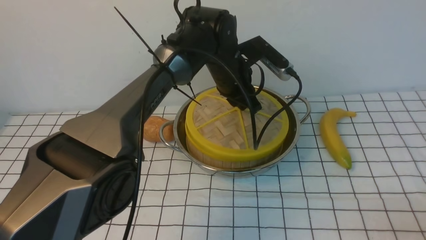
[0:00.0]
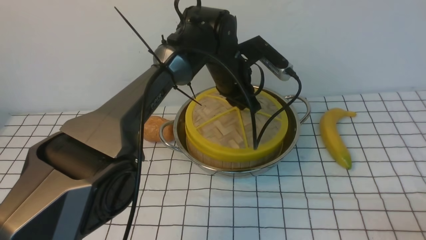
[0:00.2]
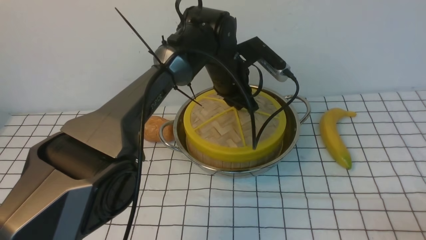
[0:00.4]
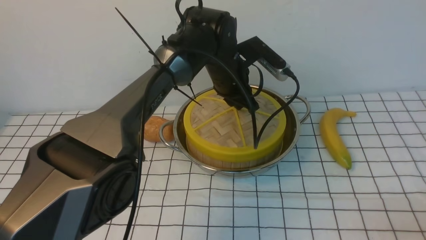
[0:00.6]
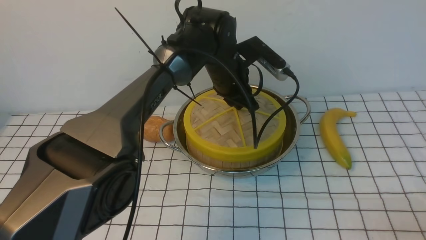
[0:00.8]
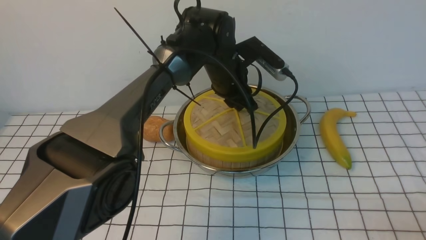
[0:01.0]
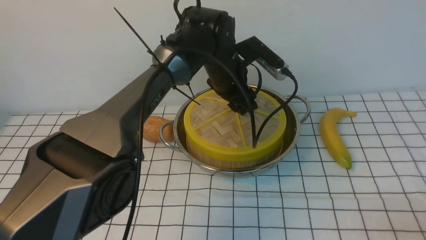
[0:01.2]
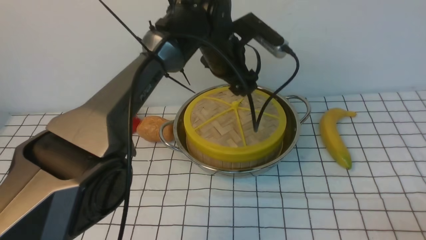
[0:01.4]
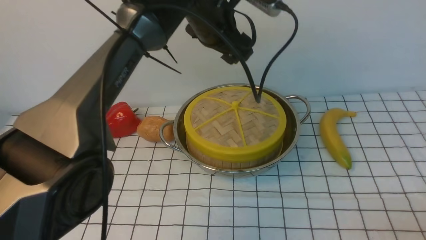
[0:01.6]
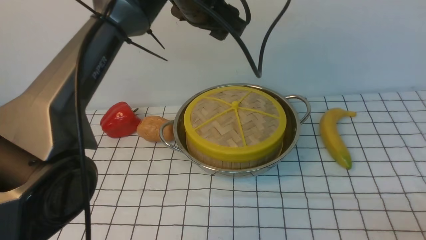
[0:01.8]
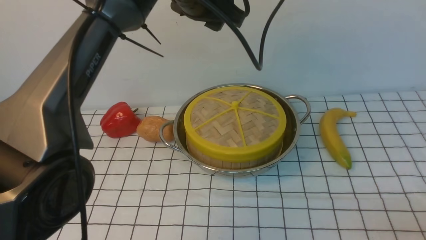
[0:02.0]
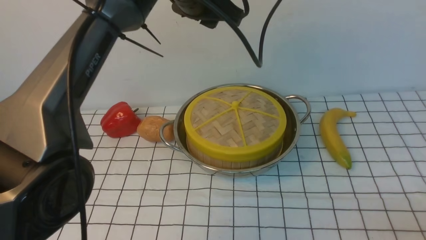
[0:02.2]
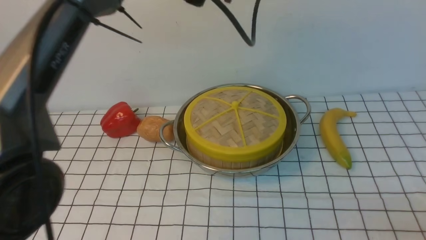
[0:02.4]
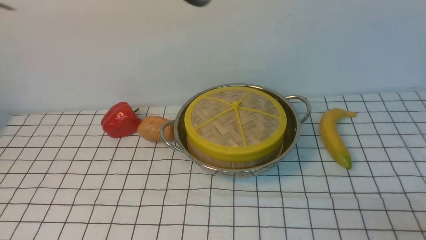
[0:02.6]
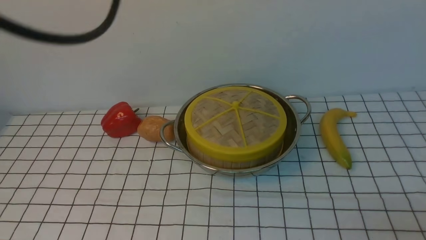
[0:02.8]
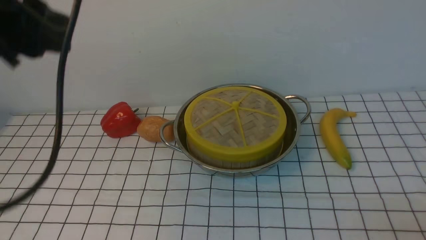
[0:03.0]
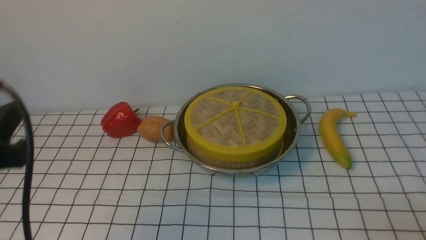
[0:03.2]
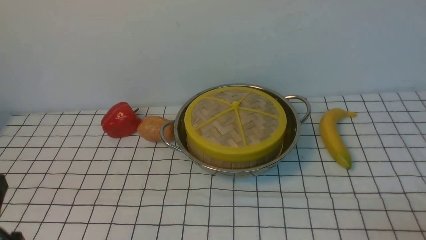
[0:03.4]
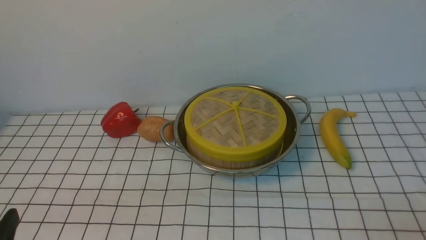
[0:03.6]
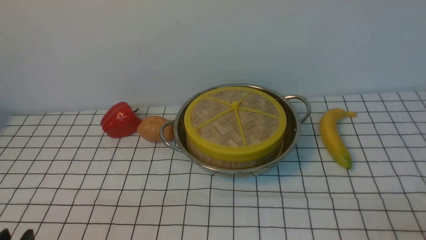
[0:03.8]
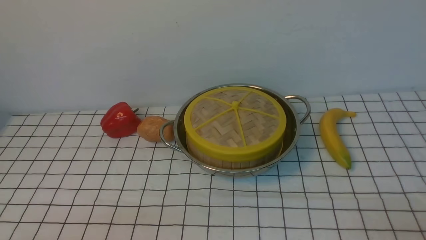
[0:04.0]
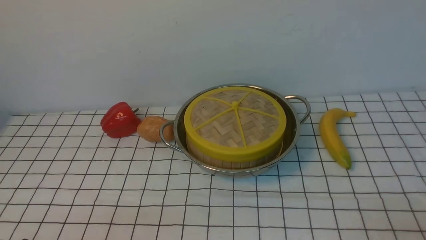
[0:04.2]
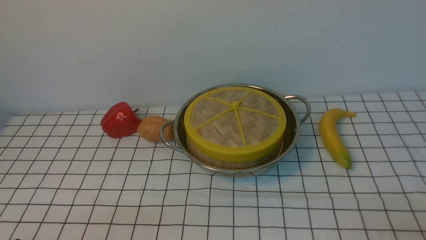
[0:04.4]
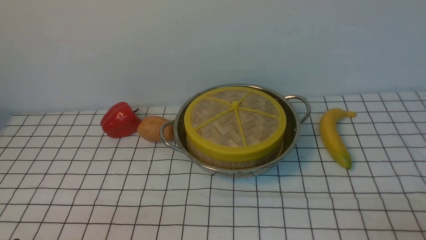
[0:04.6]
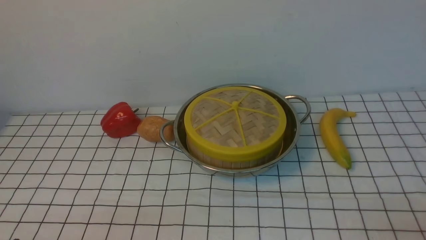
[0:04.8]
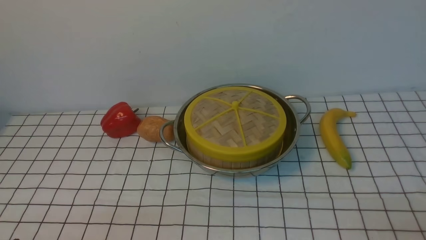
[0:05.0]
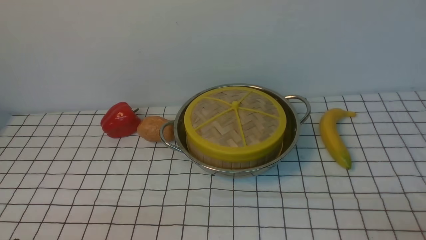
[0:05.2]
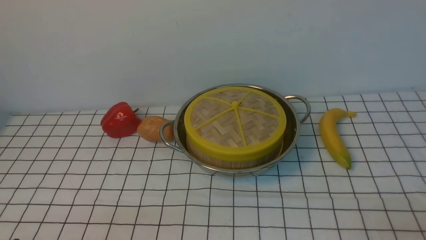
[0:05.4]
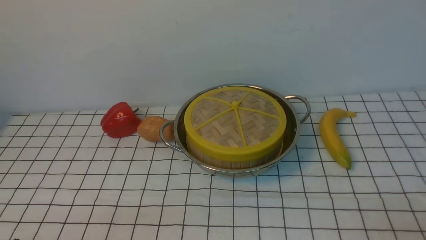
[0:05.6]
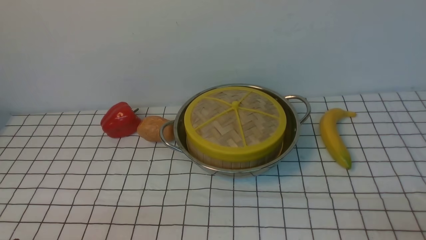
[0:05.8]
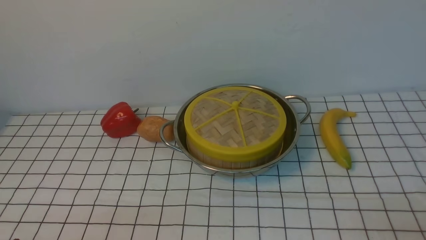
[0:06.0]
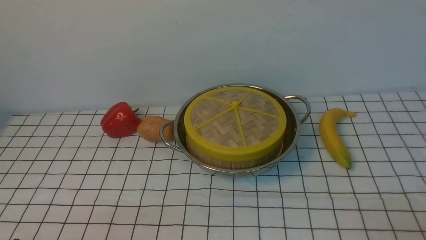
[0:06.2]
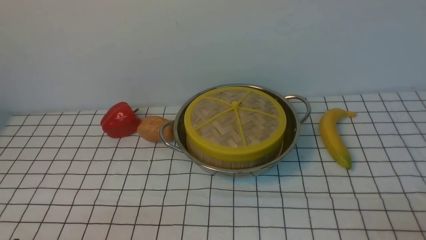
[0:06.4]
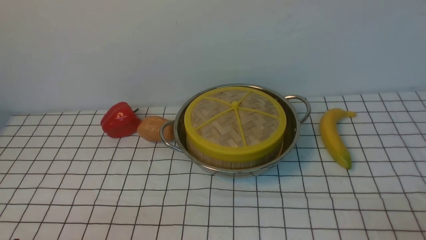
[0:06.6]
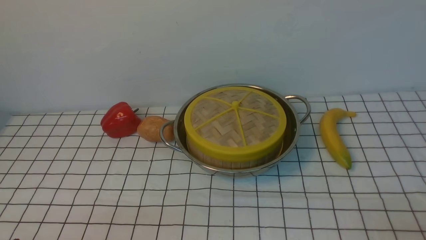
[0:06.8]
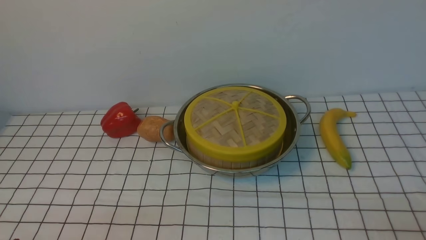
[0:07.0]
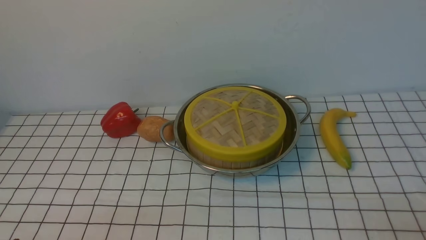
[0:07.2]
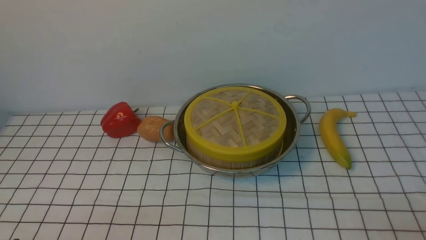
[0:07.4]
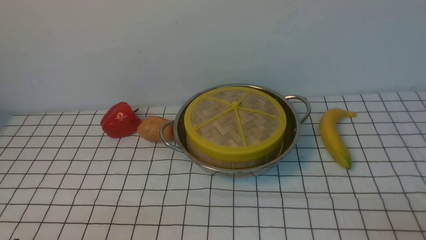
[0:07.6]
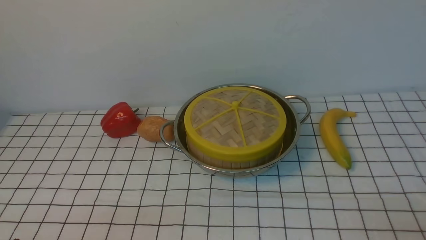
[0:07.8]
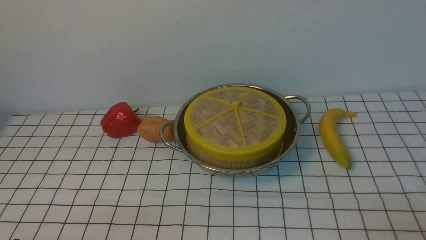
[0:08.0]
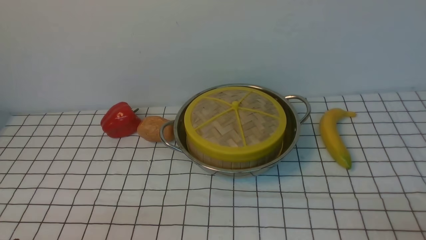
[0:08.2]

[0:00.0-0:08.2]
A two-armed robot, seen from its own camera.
Task of the whole recording: place the steamer in the pot on the white tablecloth, and put the lid on the steamer.
0:00.0 to 0:01.6: The left gripper moves upward, about 10 cm, and opens its fingers.
0:01.6 to 0:03.2: The left gripper shifts some 40 cm backward and to the left, and closes up.
0:03.2 to 0:05.0: The left gripper moves downward and backward, about 20 cm.
0:05.0 to 0:08.2: Both grippers stay put.

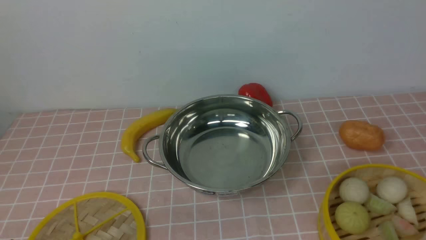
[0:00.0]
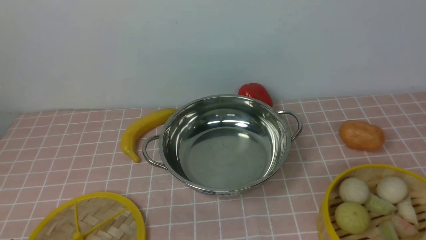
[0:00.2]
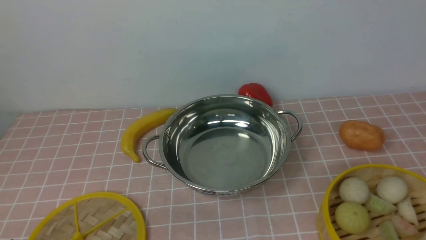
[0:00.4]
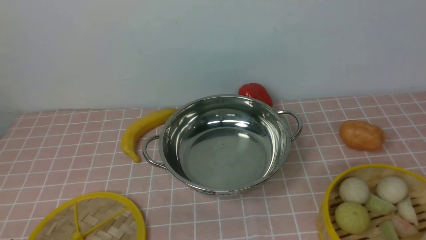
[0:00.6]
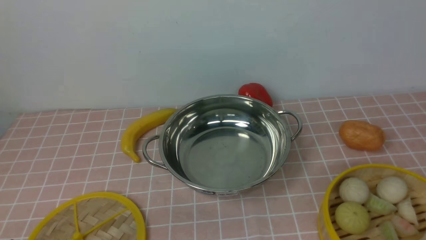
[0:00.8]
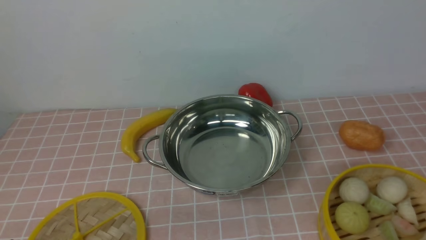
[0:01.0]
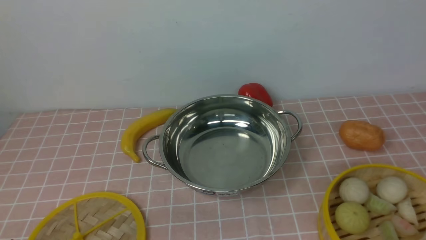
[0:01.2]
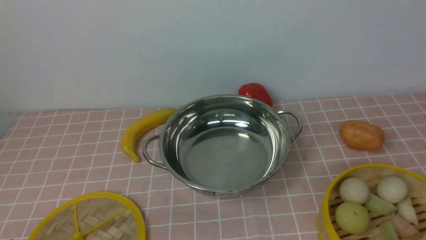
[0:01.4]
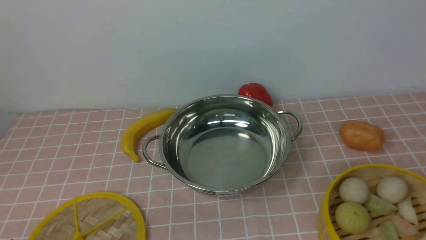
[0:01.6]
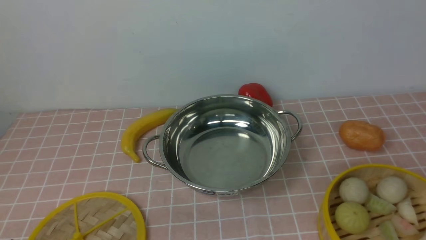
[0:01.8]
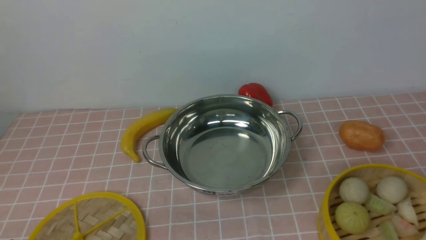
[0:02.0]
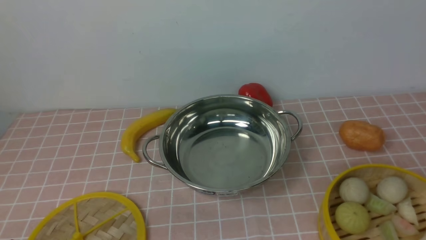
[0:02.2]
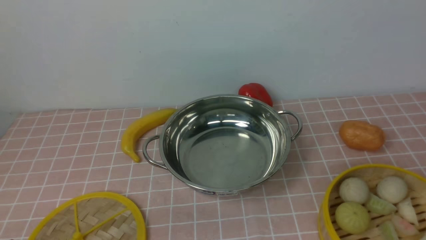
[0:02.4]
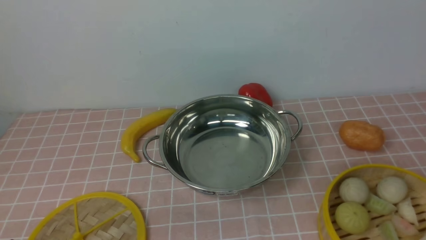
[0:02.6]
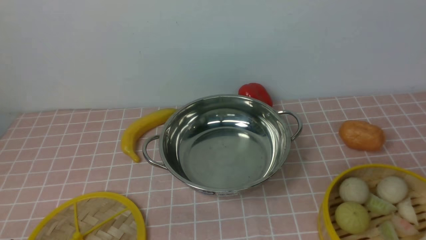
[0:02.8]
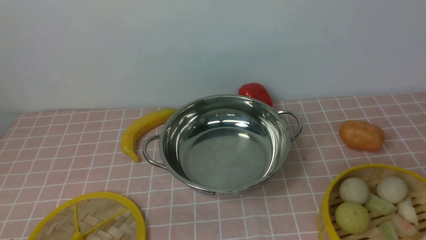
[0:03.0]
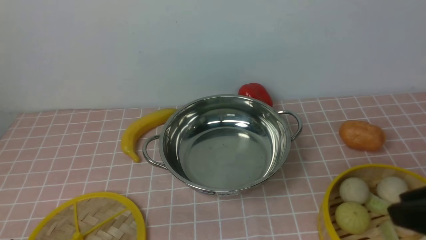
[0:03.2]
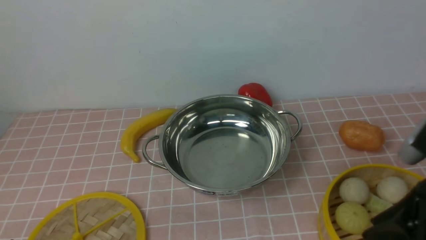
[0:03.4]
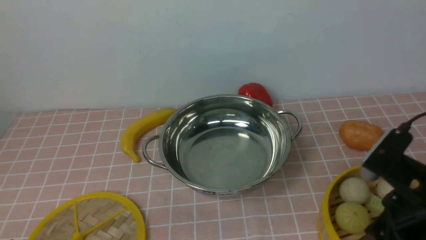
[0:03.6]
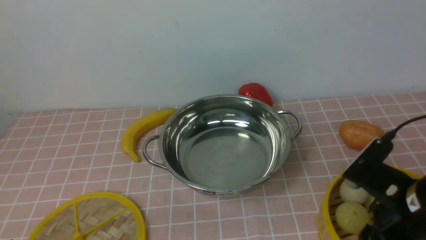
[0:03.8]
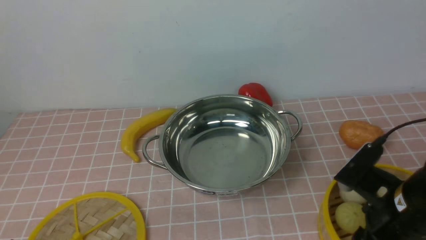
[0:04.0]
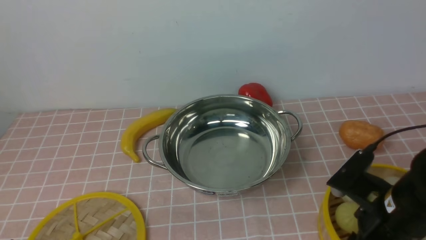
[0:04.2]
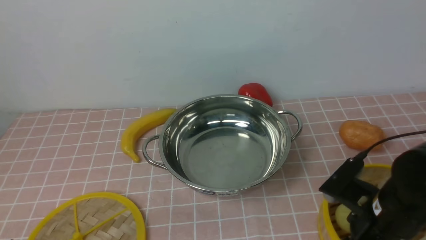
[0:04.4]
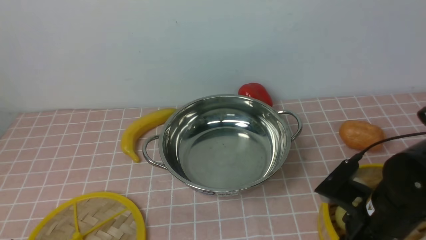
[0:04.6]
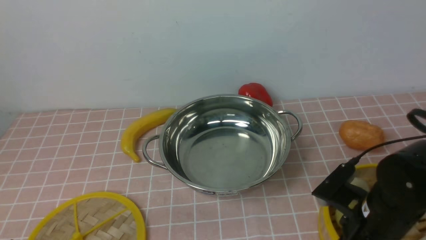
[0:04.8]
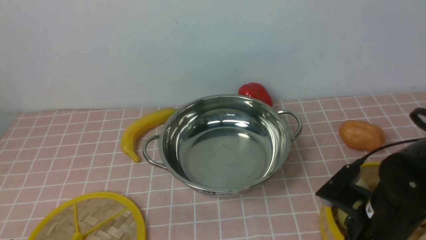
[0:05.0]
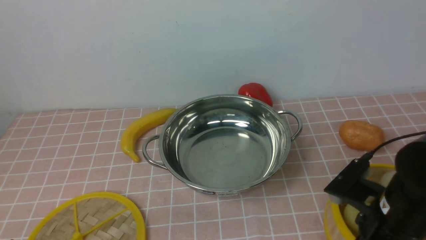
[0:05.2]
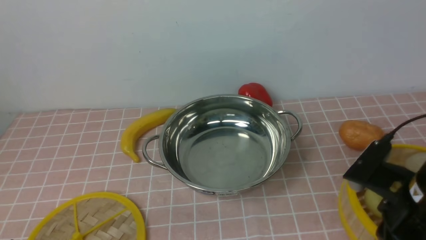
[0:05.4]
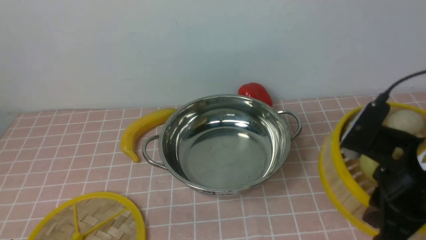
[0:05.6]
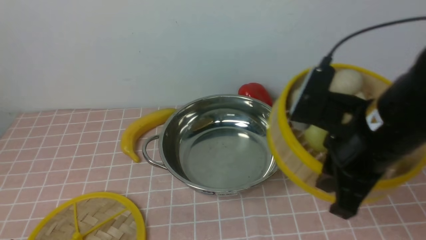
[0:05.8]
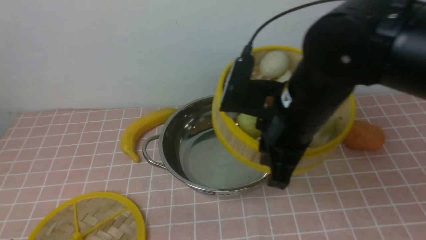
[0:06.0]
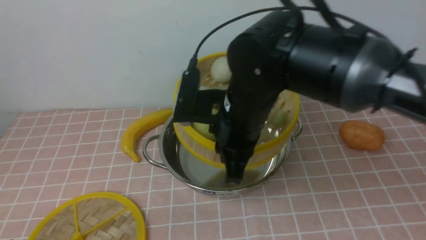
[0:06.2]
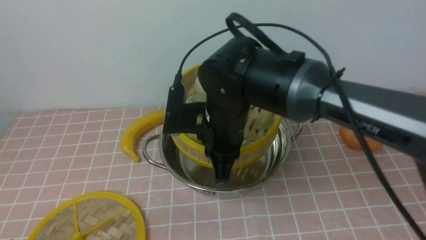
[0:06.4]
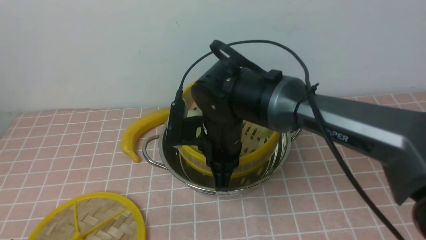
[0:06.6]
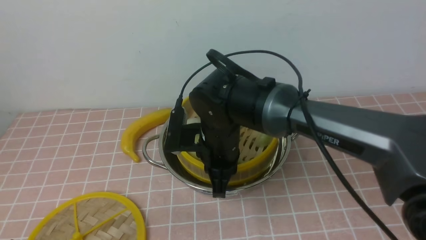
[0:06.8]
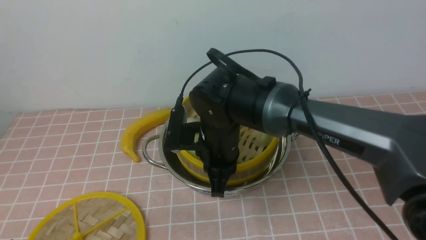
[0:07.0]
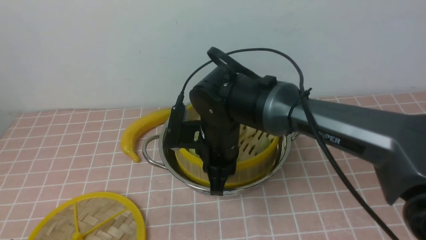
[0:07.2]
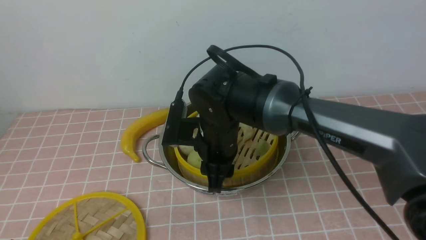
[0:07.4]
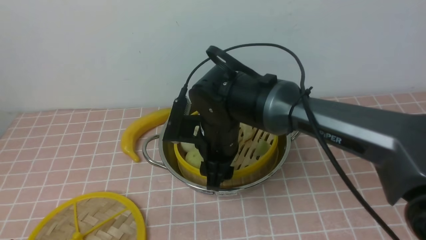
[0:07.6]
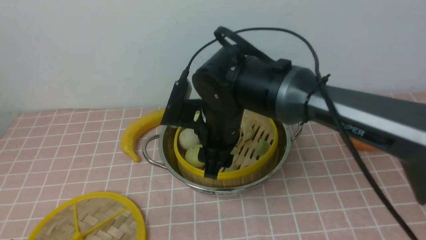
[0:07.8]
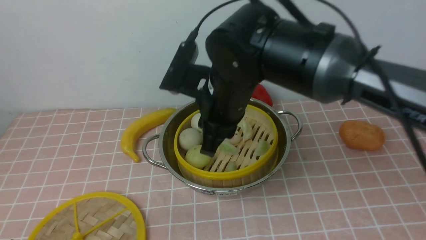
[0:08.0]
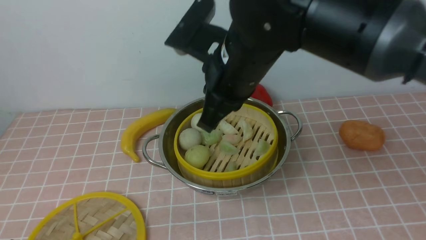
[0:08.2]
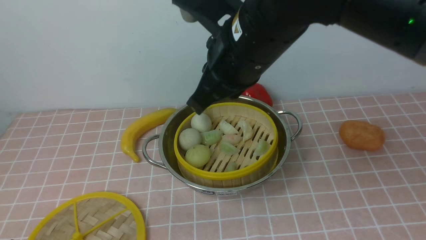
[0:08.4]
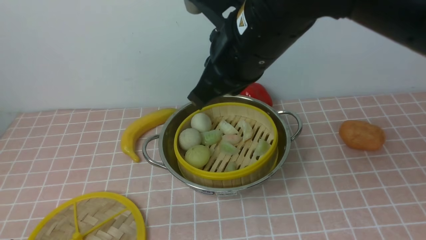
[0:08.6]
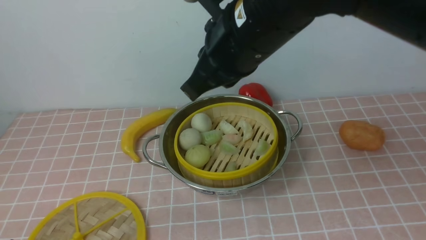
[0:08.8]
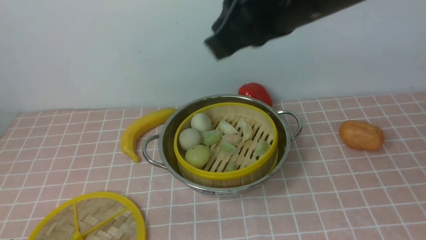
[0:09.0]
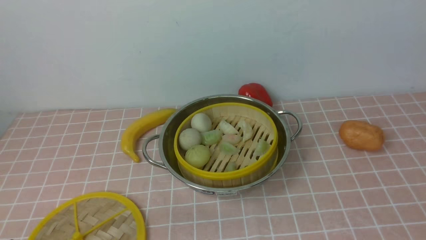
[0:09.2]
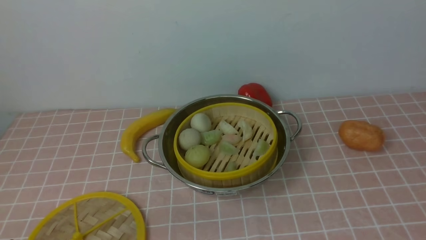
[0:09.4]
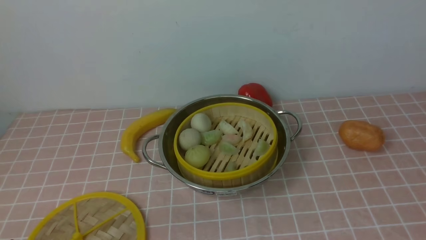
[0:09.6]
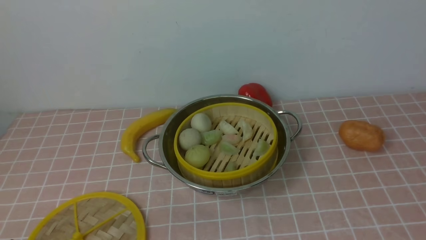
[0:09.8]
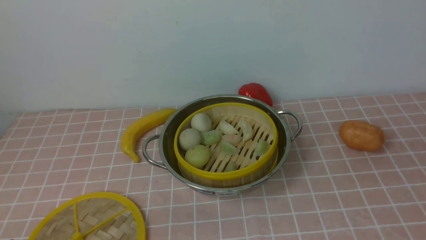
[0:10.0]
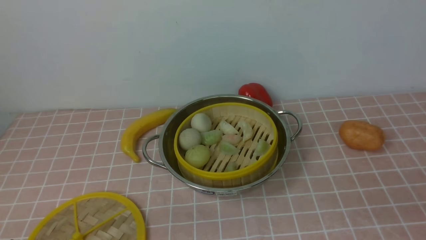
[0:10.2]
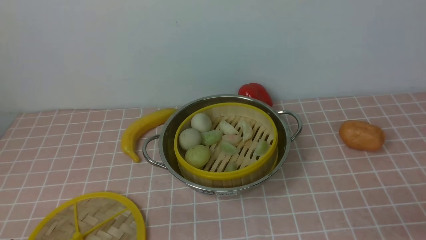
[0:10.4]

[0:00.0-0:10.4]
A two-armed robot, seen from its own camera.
Task of the whole recording: place the steamer in the pot on the pink tablecloth, and put the lid on the steamer.
Step, 0:00.0 to 0:05.2: use the right arm to lift the steamer closest to it.
Step, 0:05.4 to 0:07.8: use the right arm to put the steamer into the iron steamer pot in the middle.
0:03.0 to 0:04.4: The right gripper travels downward, forward and to the left by approximately 20 cm.
0:04.4 to 0:06.0: The right gripper moves upward, to the left and forward, about 20 cm, and closes up.
0:06.0 to 0:07.4: The right gripper is displaced downward, to the left and forward by roughly 15 cm, and opens its fingers.
0:07.4 to 0:09.0: The right gripper goes roughly 30 cm upward and to the right, and closes.
0:09.0 to 0:10.4: The right gripper travels downward, to the right and backward by about 40 cm.
